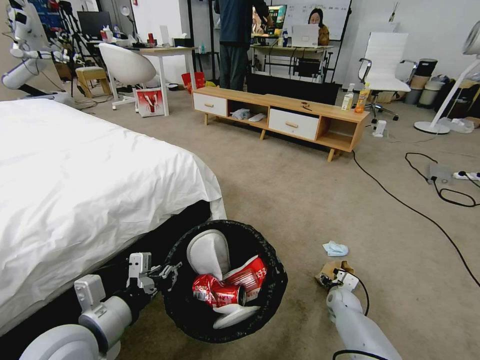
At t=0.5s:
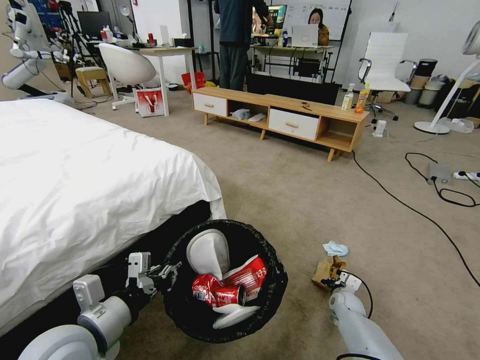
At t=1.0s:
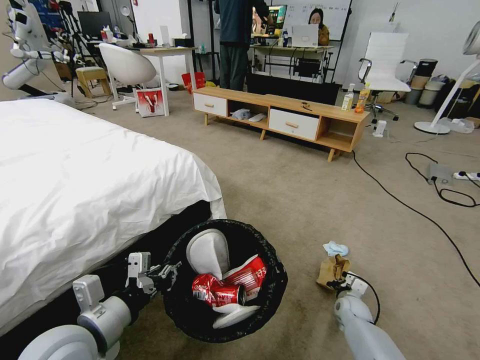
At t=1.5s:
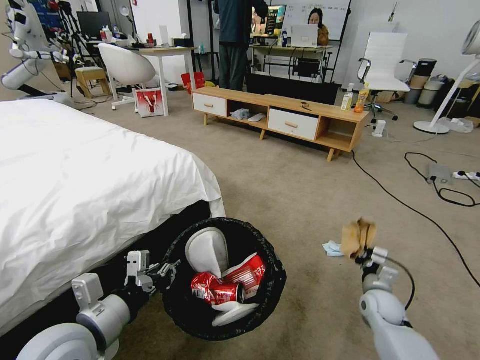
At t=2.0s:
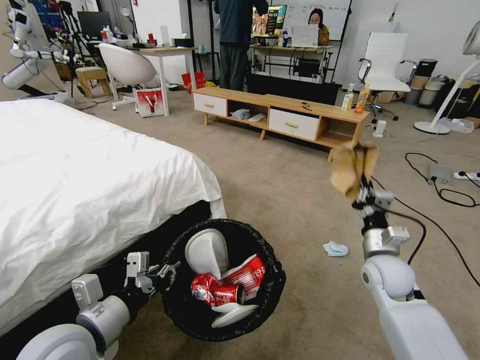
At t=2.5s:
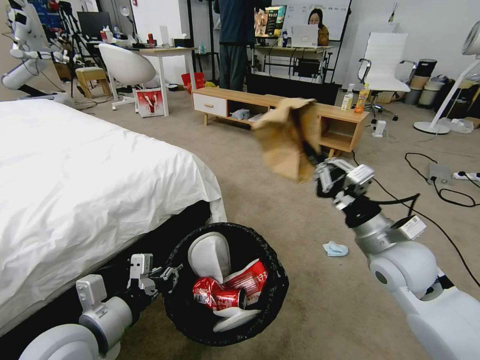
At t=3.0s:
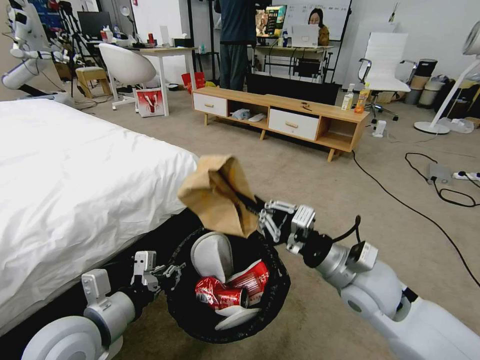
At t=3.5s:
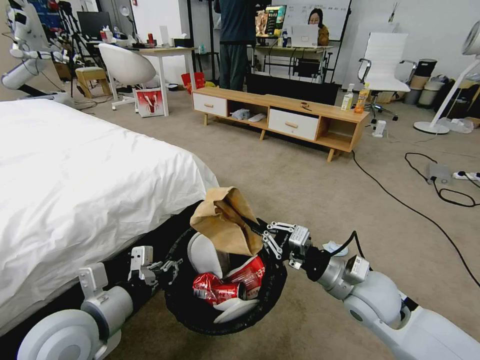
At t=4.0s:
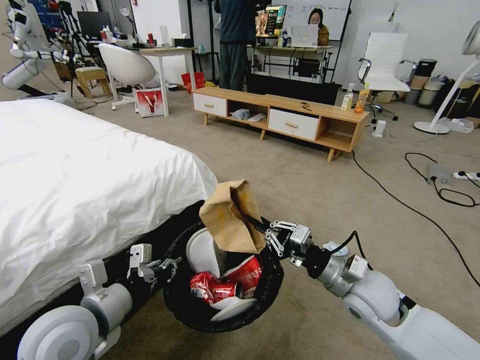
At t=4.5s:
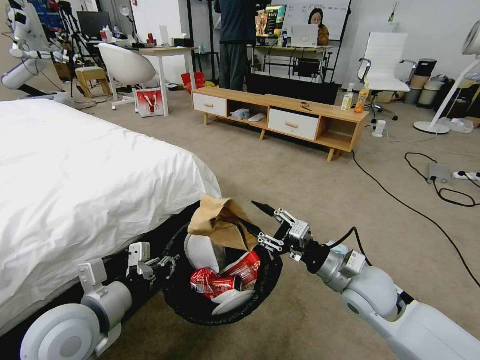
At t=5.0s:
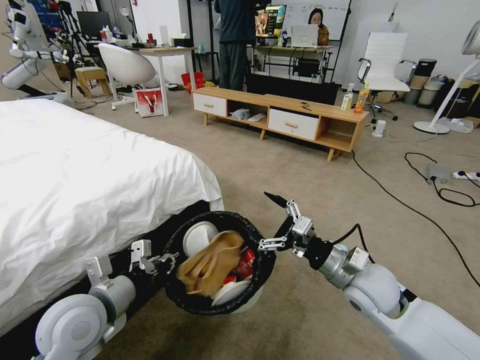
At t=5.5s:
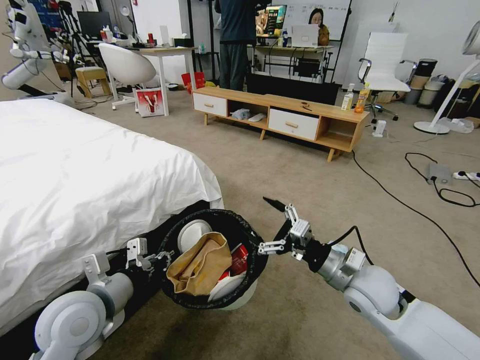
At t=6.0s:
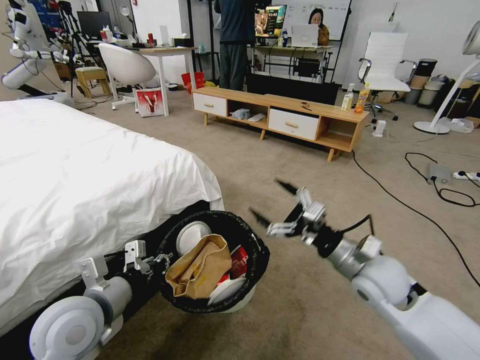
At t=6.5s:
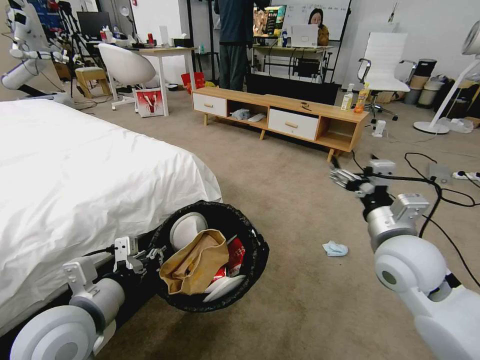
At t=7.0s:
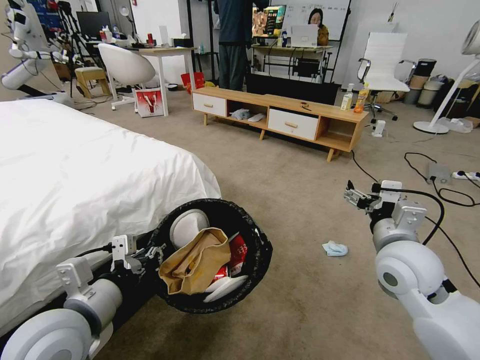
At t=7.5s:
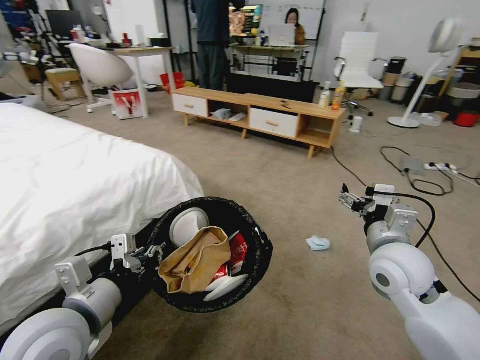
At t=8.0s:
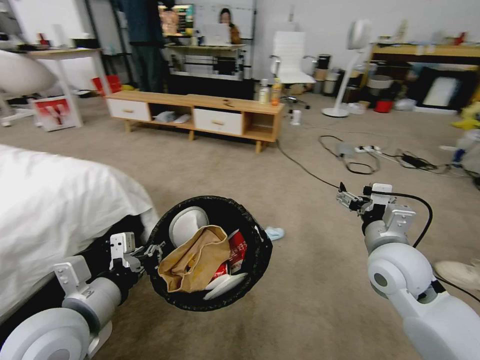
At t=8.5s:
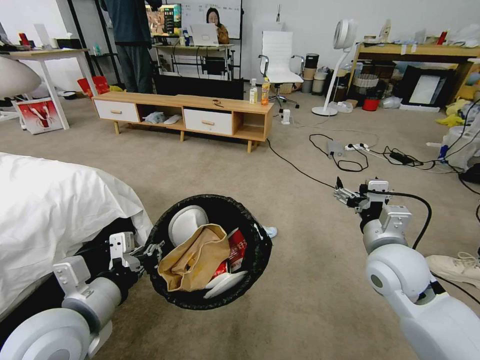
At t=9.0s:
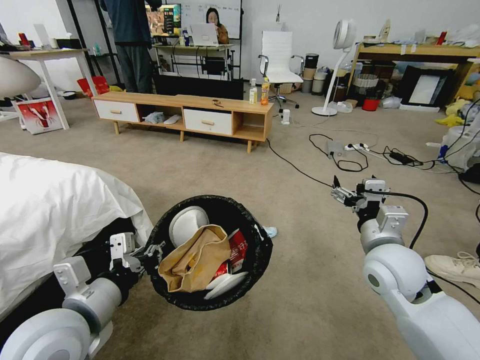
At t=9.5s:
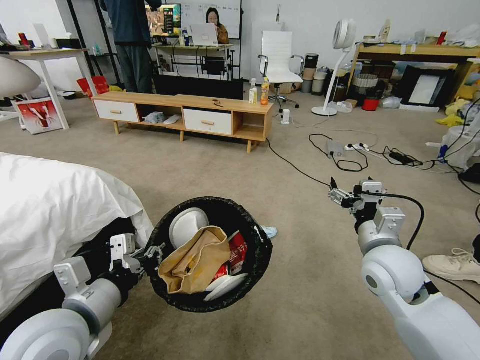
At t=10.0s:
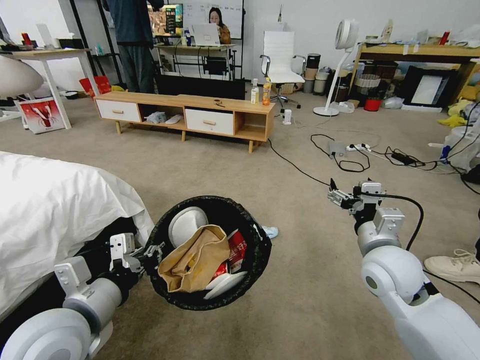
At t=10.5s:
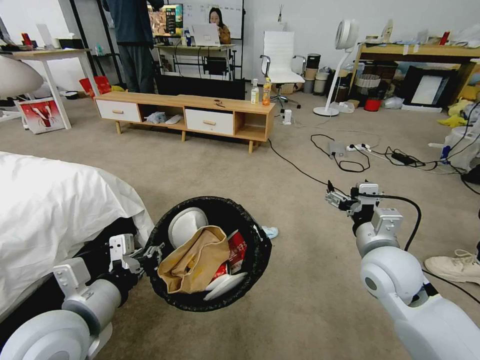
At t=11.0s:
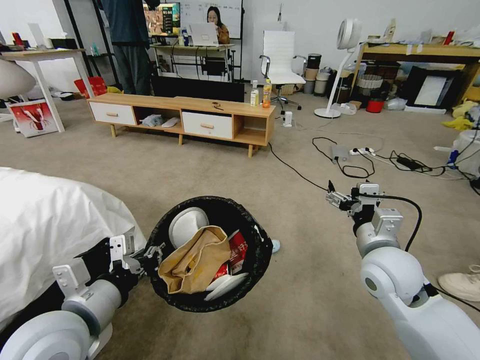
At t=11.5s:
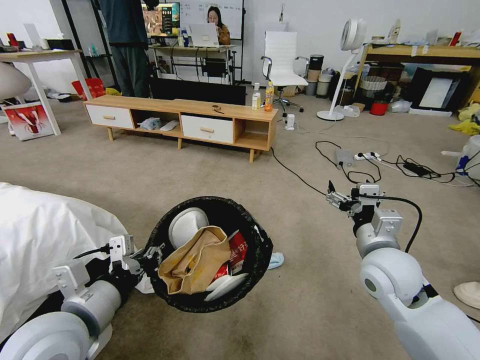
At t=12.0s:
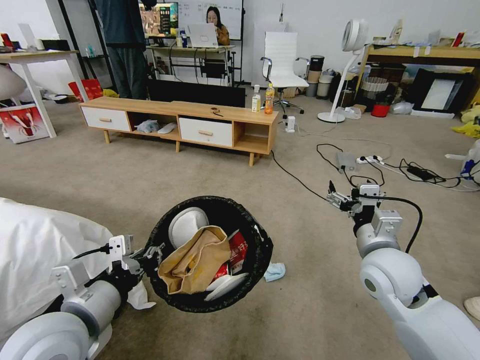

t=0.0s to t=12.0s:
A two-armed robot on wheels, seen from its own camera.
Task of the whole recording: Pick up the trash bin and place the garbage on the floor into it.
t=0.0s to t=2.0s: The right gripper travels upward by approximately 25 cm, and closes up.
t=2.0s to t=4.0s: The right gripper travels to the left and backward by about 10 cm.
t=4.0s to t=6.0s: The right gripper opens.
t=6.0s to t=8.0s: The left gripper moves about 5 cm.

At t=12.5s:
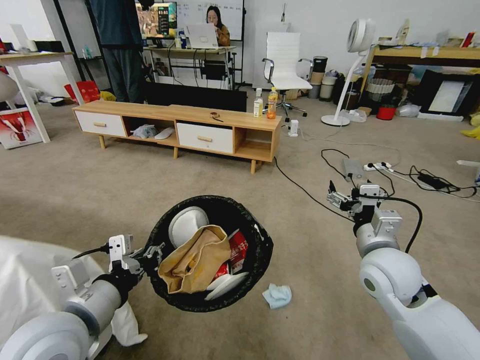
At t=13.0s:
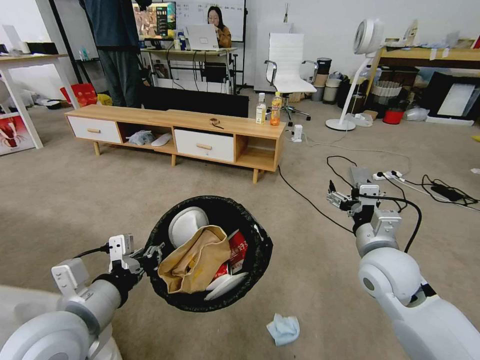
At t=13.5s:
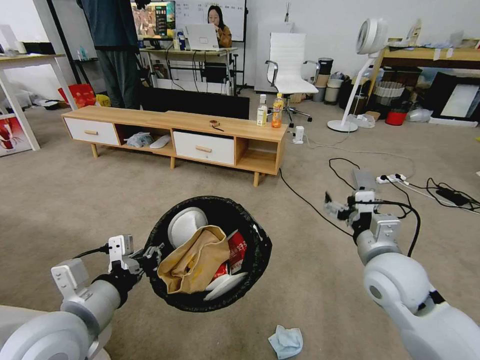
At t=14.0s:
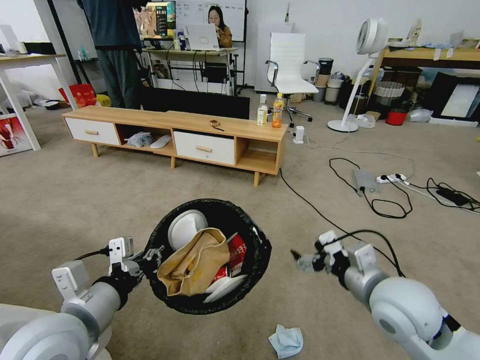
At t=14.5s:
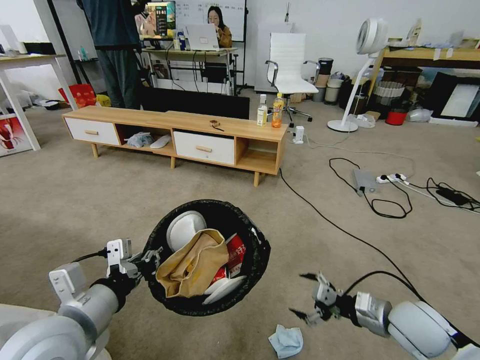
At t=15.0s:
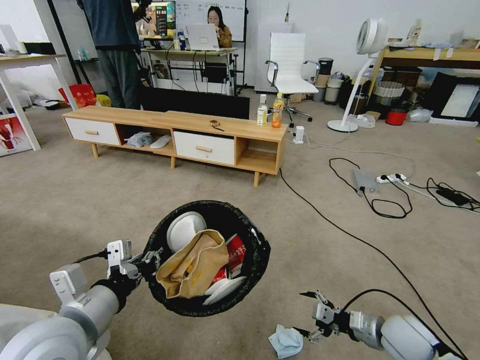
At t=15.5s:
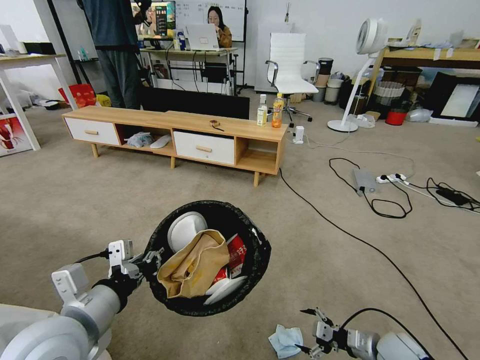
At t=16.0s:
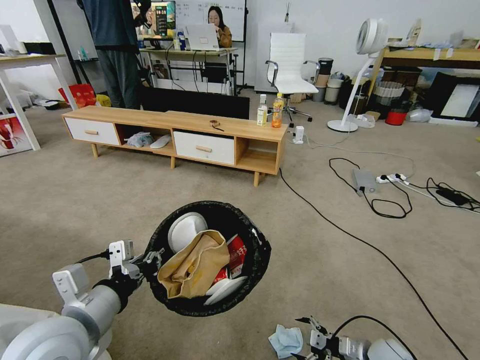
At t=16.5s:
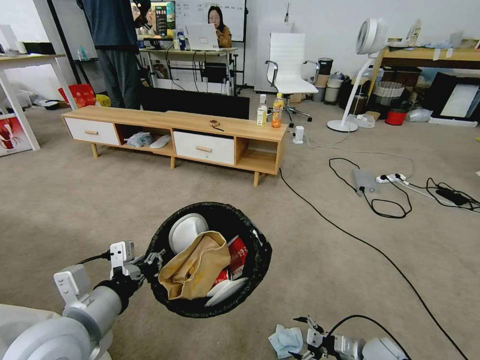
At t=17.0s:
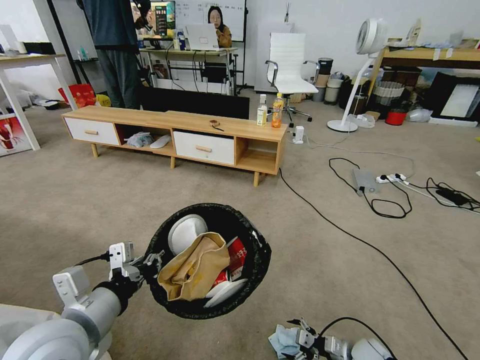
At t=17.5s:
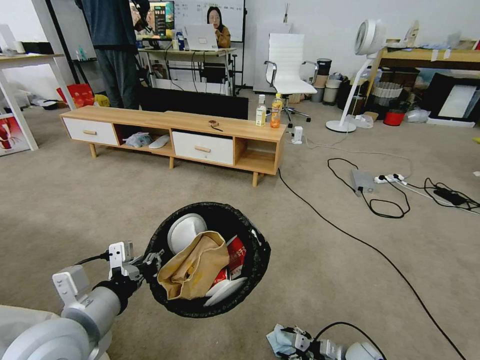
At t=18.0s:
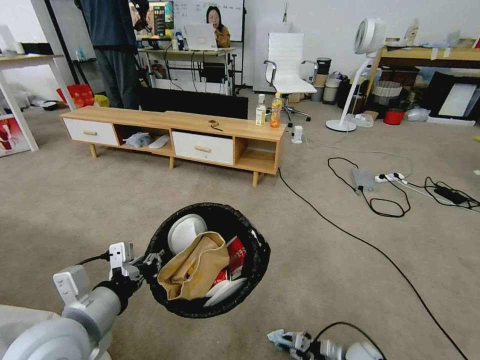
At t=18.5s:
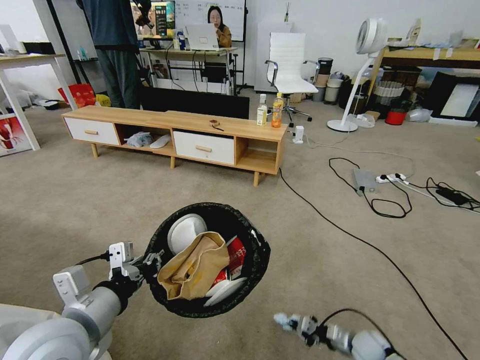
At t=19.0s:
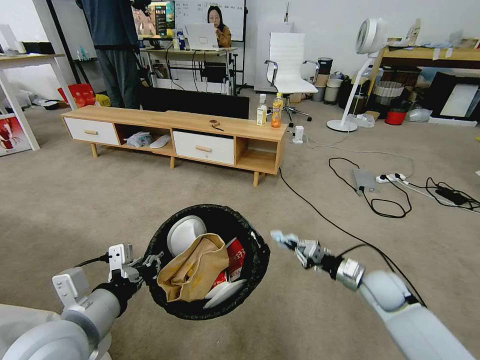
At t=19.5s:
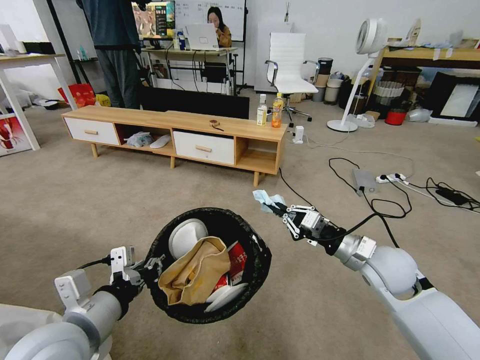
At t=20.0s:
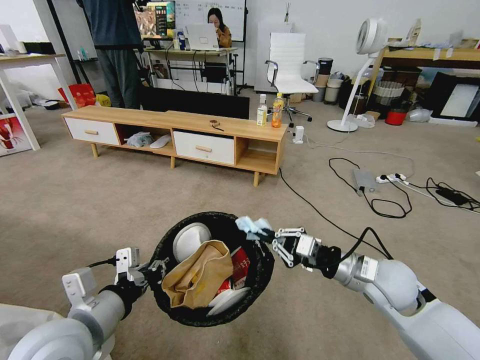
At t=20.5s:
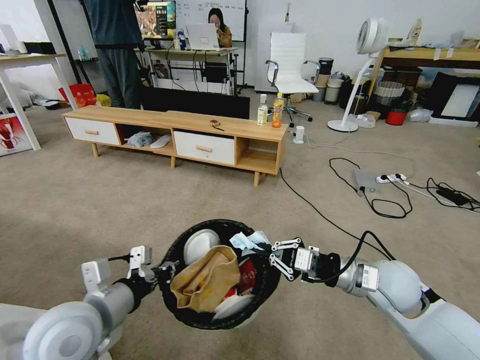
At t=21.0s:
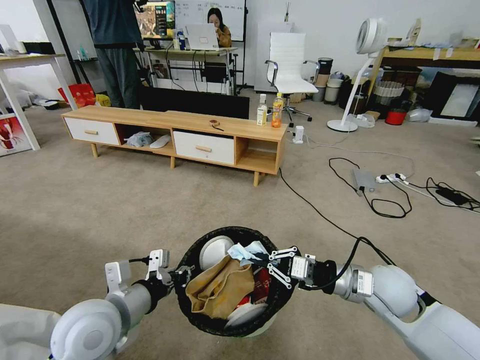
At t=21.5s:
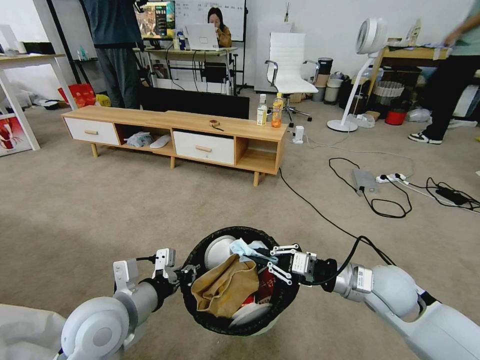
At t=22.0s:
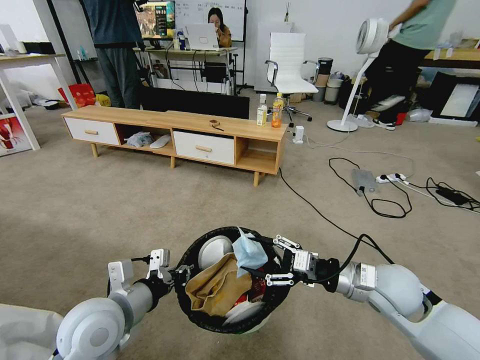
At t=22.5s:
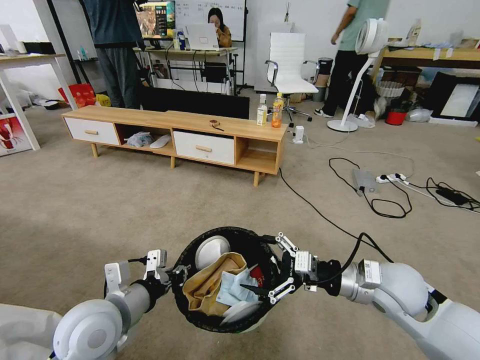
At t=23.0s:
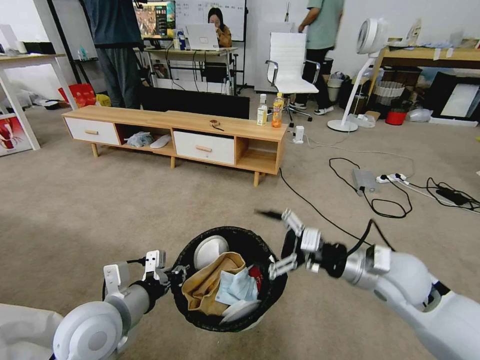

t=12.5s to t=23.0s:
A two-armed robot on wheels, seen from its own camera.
Task of the whole recording: Pick up the trash bin and place the garbage on the floor into it.
t=12.5s to t=14.5s: The right gripper moves downward, to the right and backward, approximately 15 cm.
t=14.5s to t=16.5s: The right gripper shifts roughly 20 cm downward.
t=16.5s to t=19.0s: The right gripper shifts approximately 20 cm upward and forward, and closes up.
t=19.0s to t=21.0s: The left gripper ends up about 5 cm from where it was. The right gripper shifts roughly 10 cm upward, backward and to the left.
t=21.0s to t=23.0s: The right gripper opens up.

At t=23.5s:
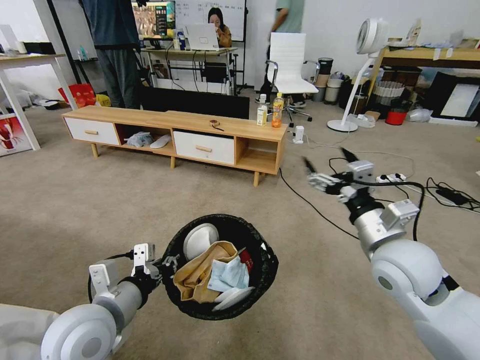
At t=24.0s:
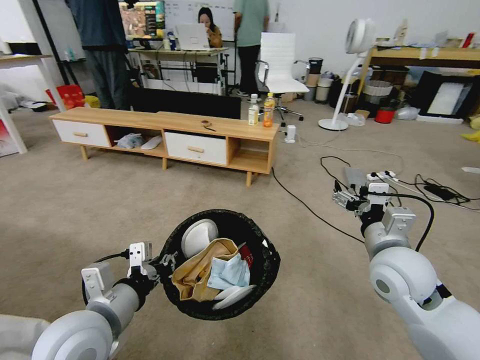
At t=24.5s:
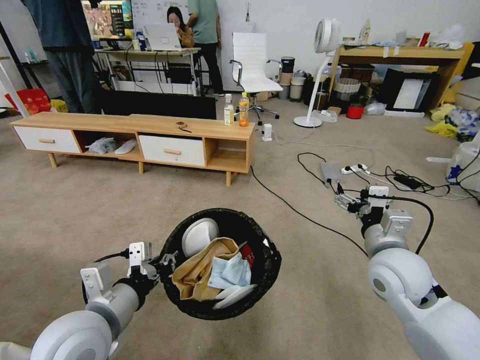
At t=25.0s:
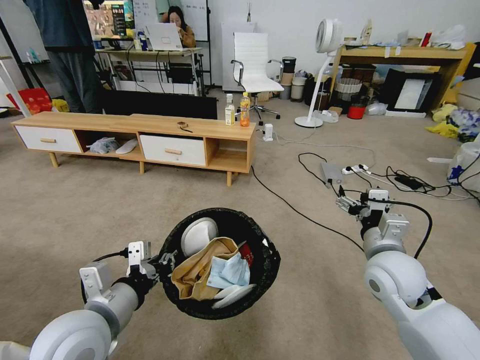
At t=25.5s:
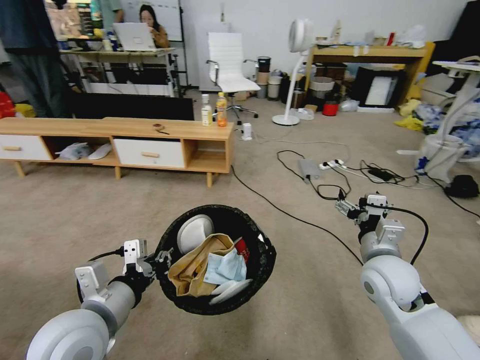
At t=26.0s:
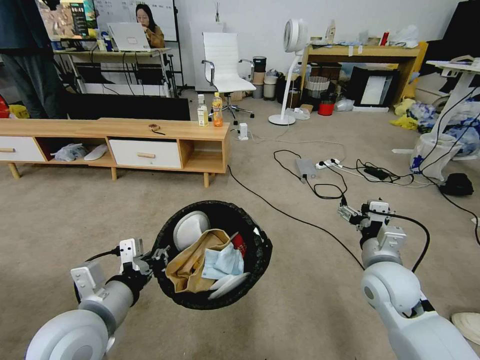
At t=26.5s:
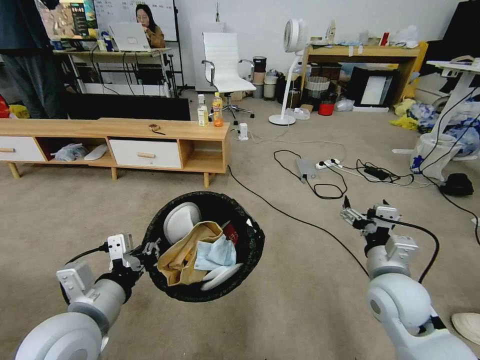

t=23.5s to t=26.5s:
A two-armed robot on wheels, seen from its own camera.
Task of the whole recording: Pick up the trash bin and place the garbage on the floor into it.
t=23.5s to t=25.0s: The right gripper shifts roughly 5 cm downward.
